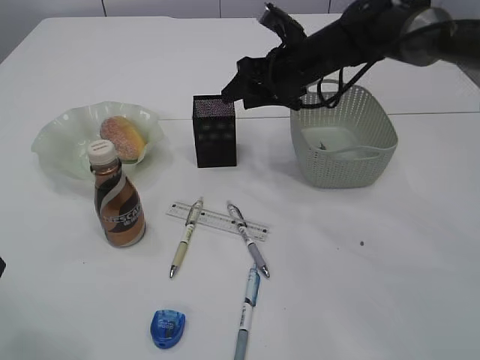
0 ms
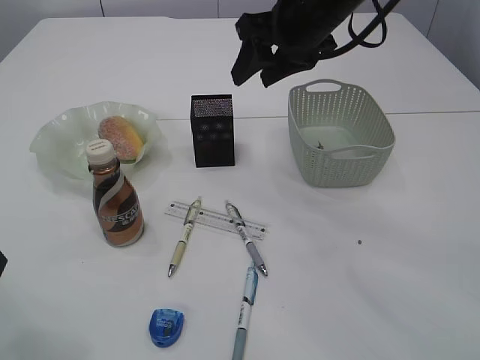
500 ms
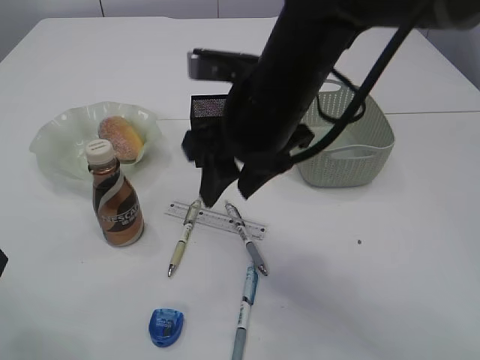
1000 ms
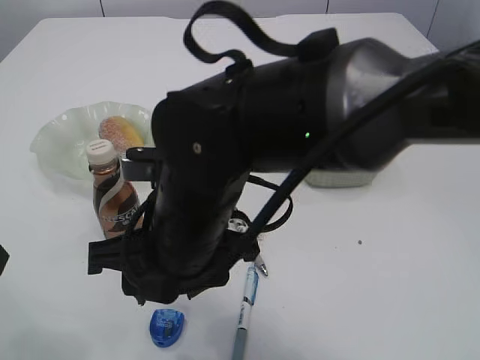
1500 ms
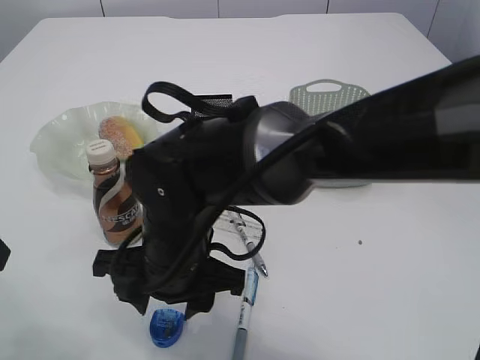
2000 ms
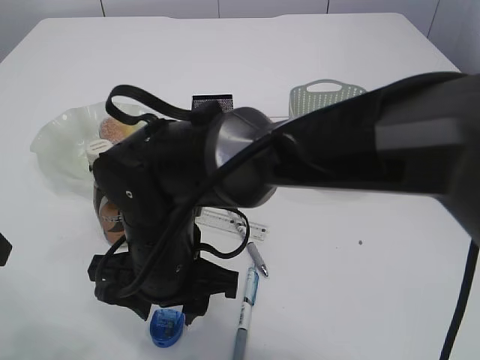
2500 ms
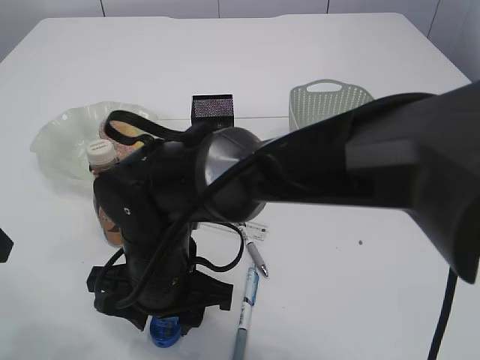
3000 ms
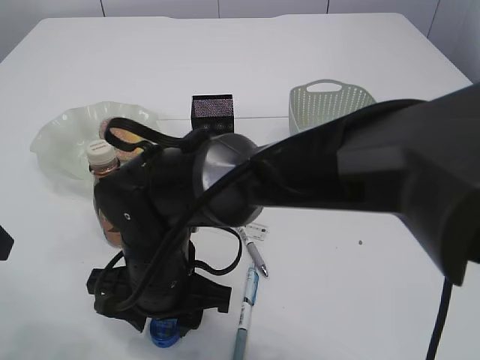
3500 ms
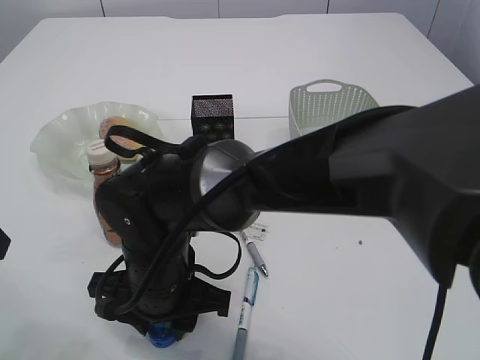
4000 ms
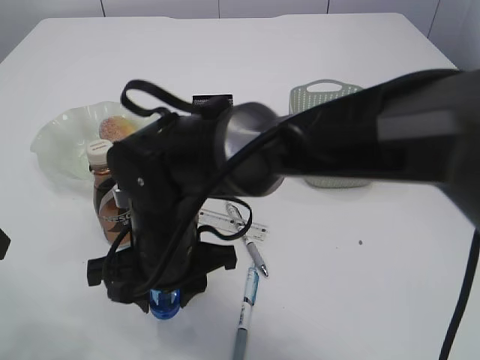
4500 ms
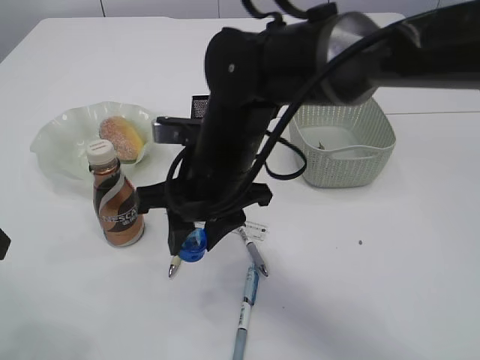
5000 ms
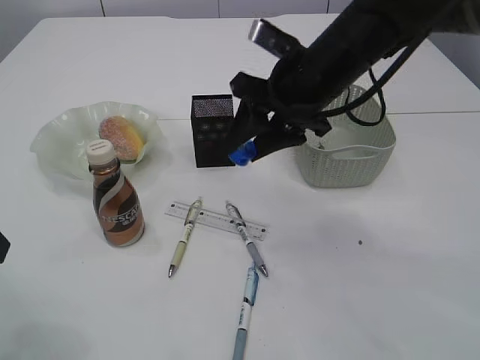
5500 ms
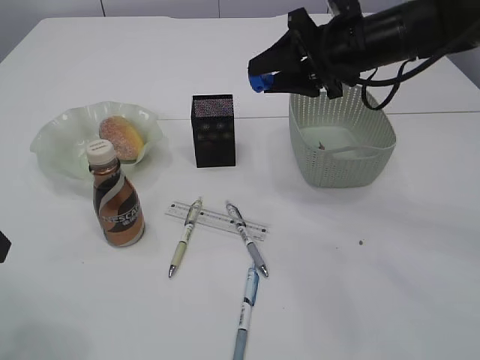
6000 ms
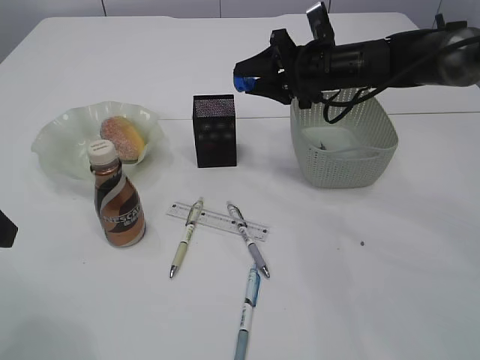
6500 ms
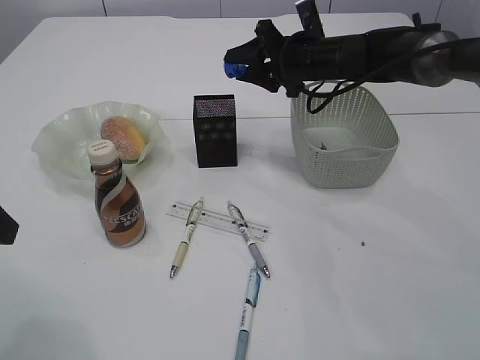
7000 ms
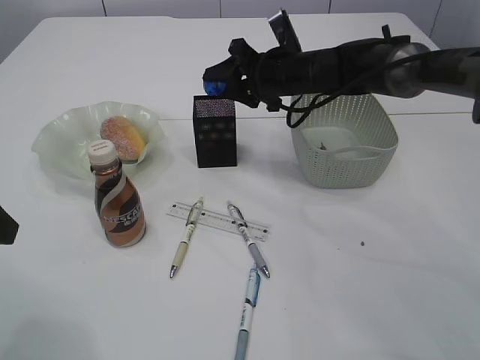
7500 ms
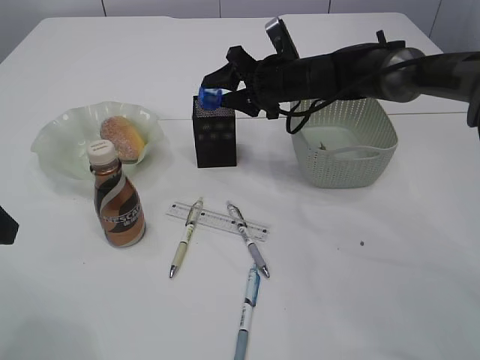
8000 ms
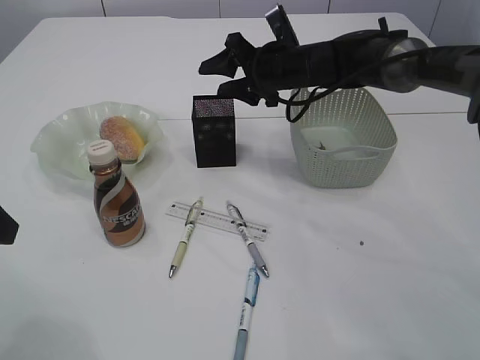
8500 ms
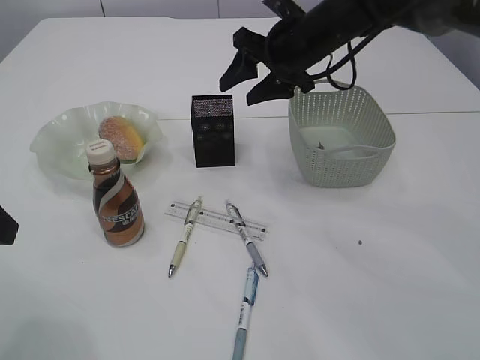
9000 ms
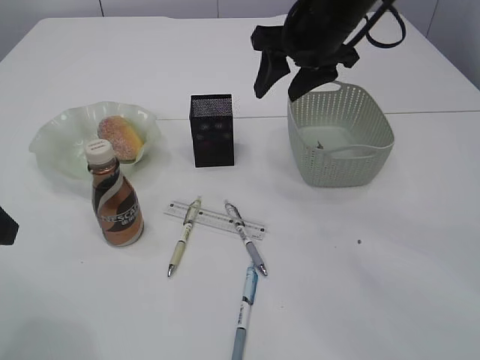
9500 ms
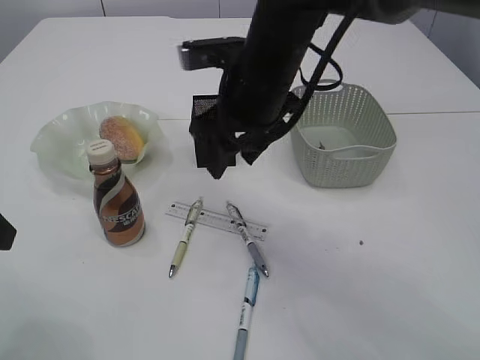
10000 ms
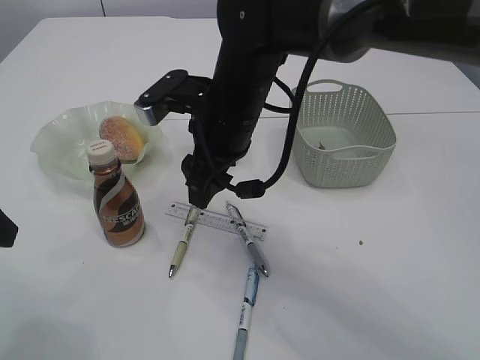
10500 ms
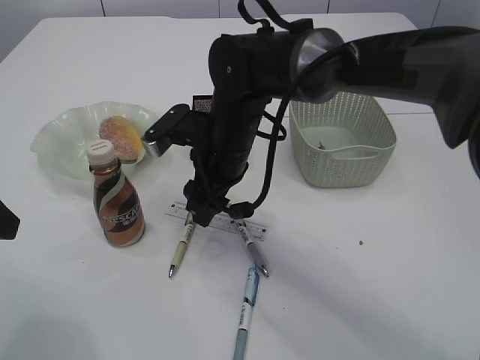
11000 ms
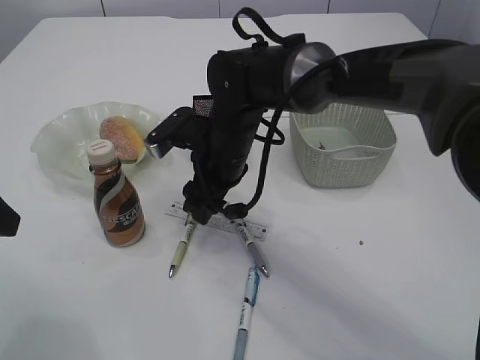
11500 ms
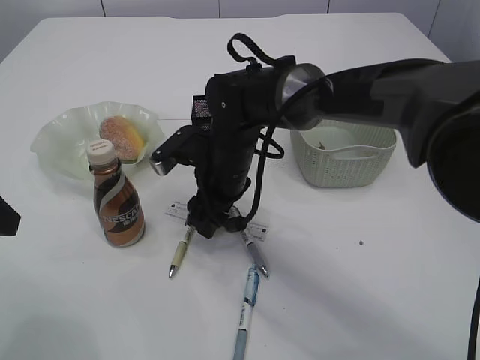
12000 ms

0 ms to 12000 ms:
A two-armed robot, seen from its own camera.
Step, 0 ms to 5000 ms: Pick up the blue pencil sharpener.
Step, 5500 ms to 8000 ms: Place the blue pencil sharpener into the pen holder.
0 ms to 2000 ms: The right gripper is displaced backward and to the left by about 30 cm.
4000 ms to 6000 ms: The right gripper travels to the right, forward and upward by some 35 cm.
6000 ms to 8000 ms: The right gripper travels downward, forward and to the left by approximately 15 cm.
8000 ms to 10000 ms: The right gripper is displaced backward and upward by about 15 cm.
10000 ms to 12000 ms: The right gripper travels downward by about 15 cm.

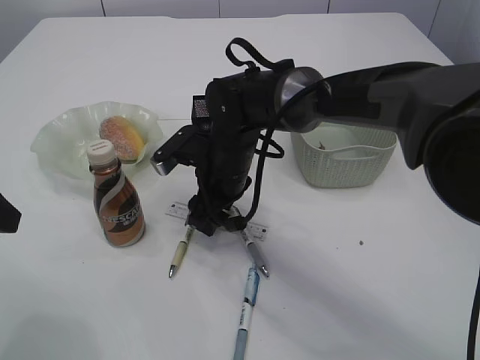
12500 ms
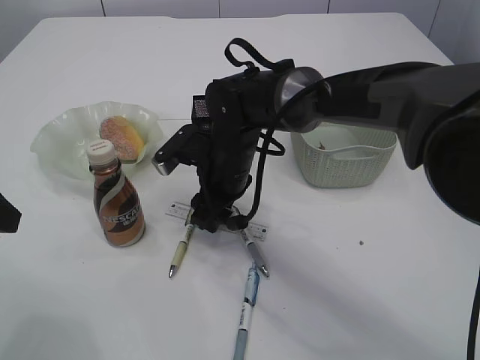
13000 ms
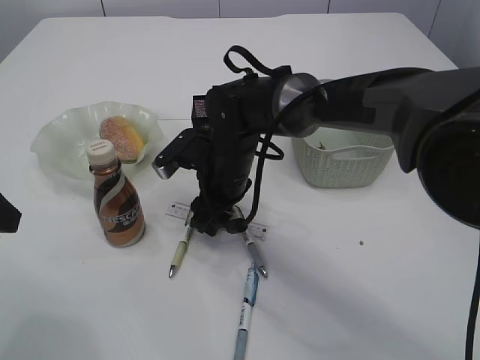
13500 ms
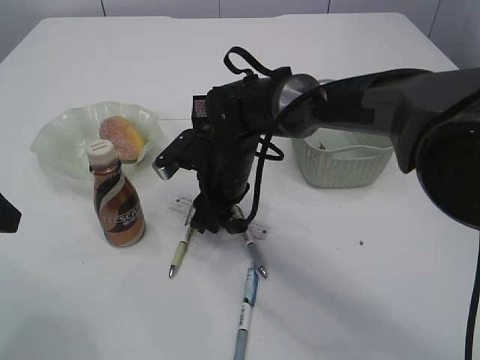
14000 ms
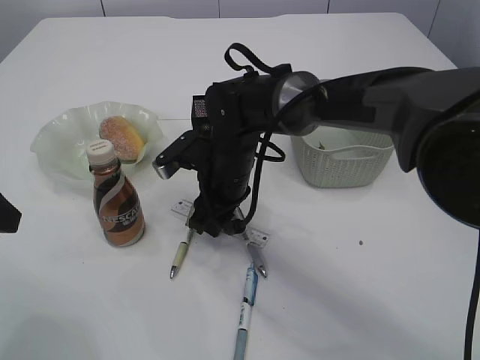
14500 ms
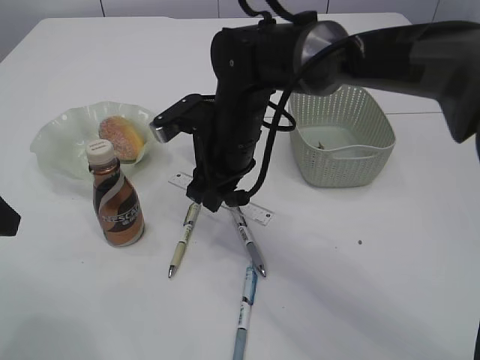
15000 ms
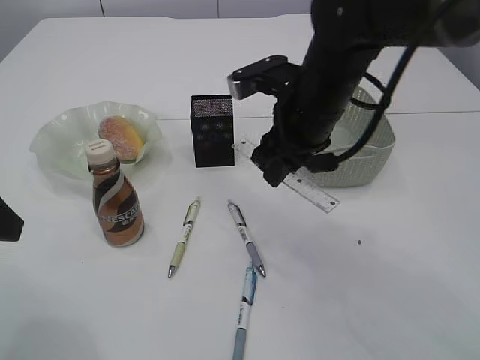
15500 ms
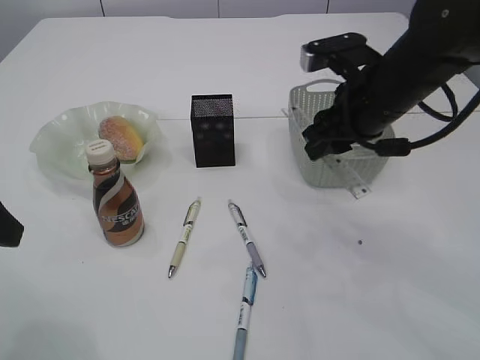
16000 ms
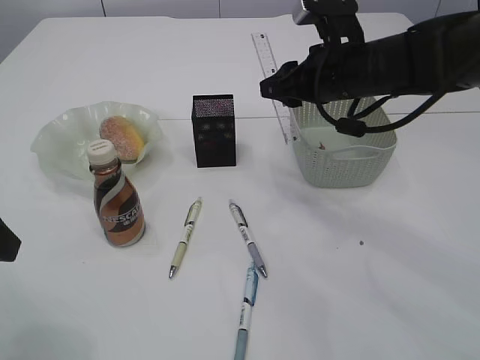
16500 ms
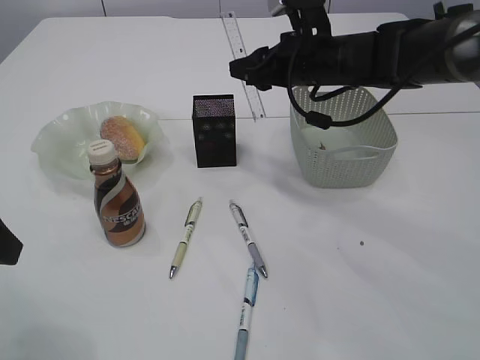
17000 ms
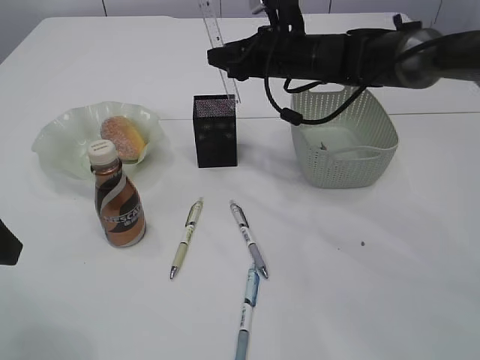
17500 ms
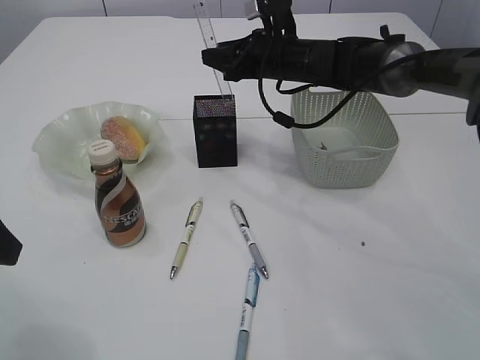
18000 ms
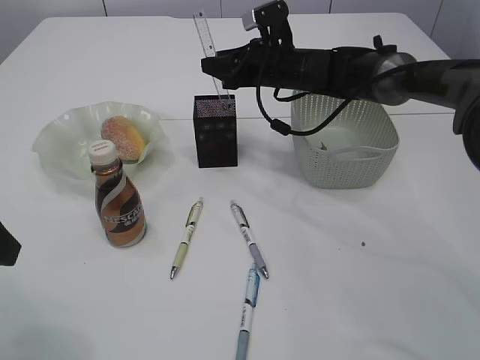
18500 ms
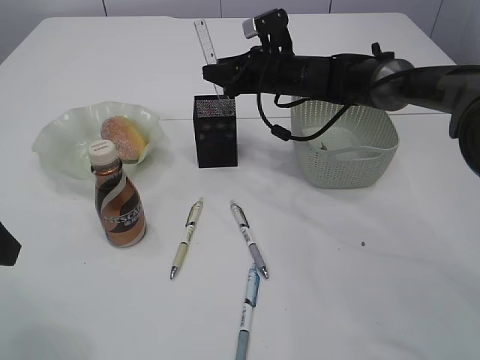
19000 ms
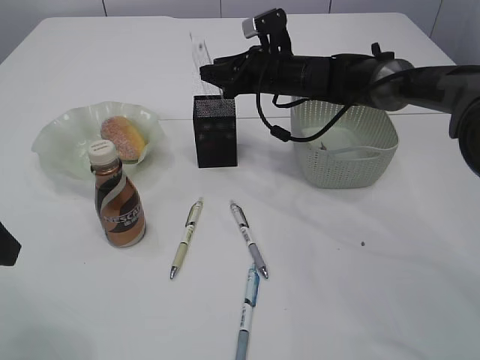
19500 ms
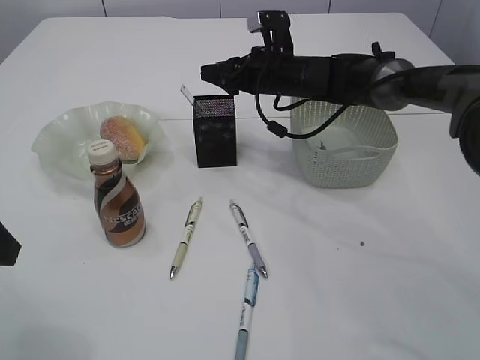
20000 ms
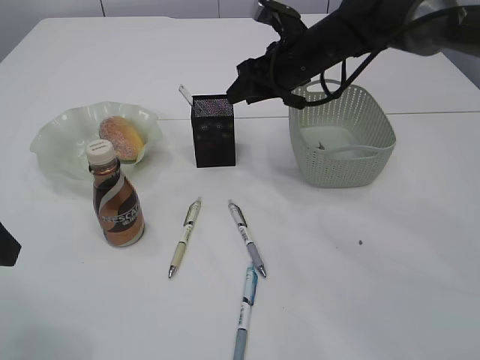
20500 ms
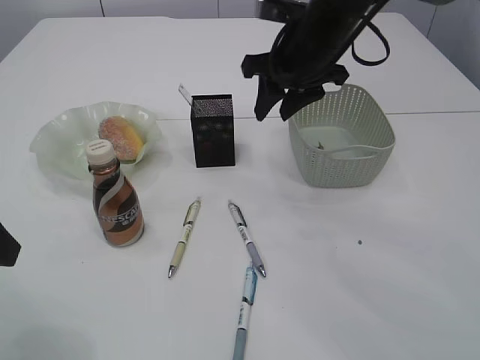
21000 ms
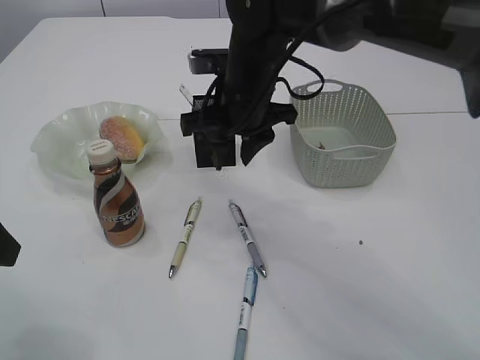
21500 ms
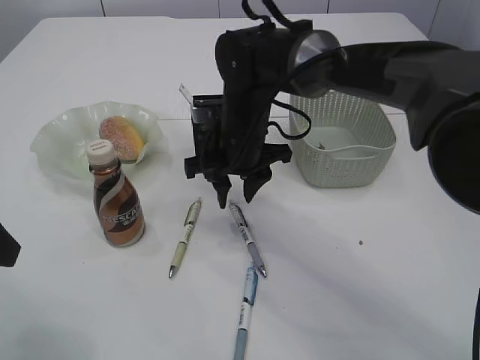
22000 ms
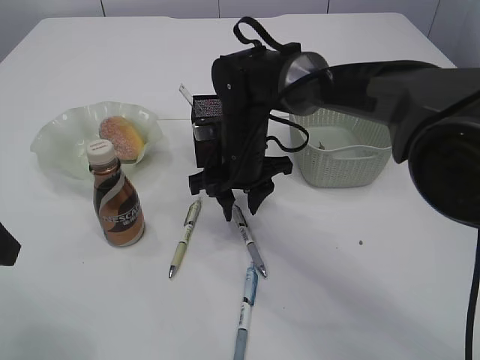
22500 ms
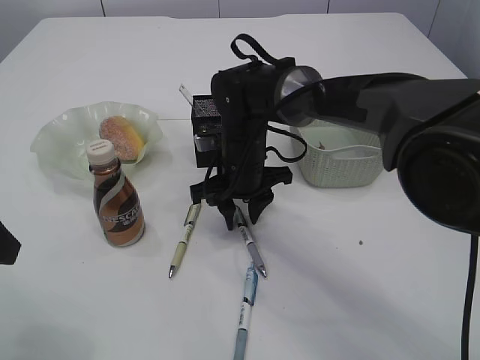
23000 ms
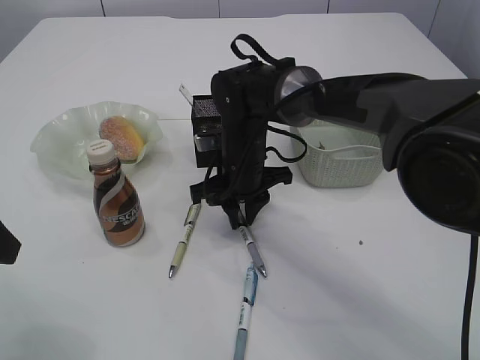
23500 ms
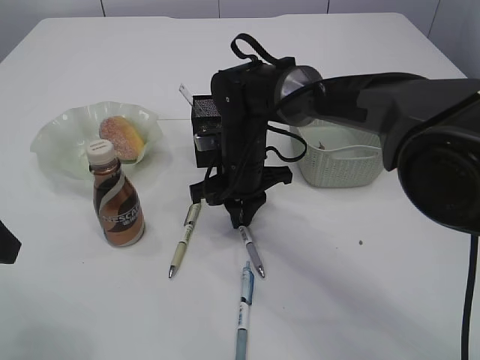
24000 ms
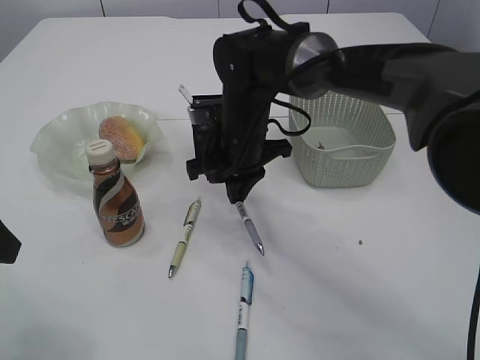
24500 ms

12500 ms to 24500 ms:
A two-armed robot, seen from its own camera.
Step, 12500 ms to 15000 ms: pick up the ruler.
Step, 15500 ms to 20000 ms: Place the ruler into the pen holder.
12500 ms to 14500 ms: The right gripper closes up.
14500 ms to 16500 ms: The right gripper heads to the right and upward, covering approximately 20 cm.
16500 ms to 18500 ms: The right gripper heads forward and downward, covering some 15 cm.
20500 ms to 22500 ms: The right gripper heads to the left, backward and downward, covering approximately 15 cm.
22500 ms to 24500 ms: The right gripper closes up.

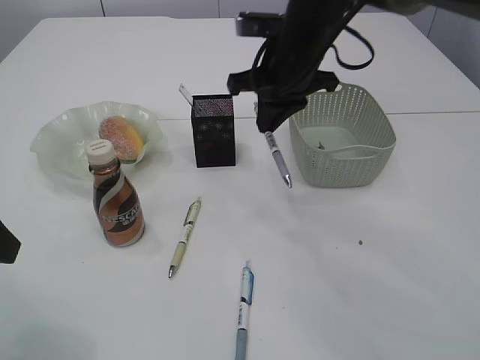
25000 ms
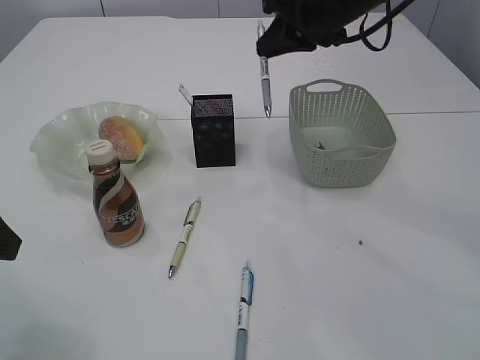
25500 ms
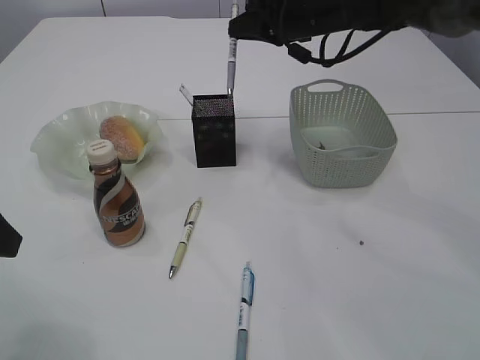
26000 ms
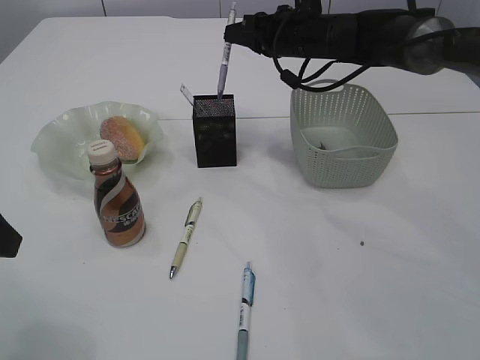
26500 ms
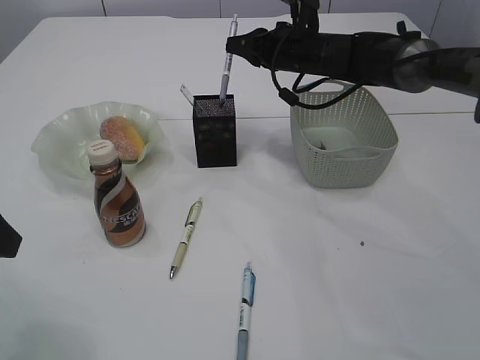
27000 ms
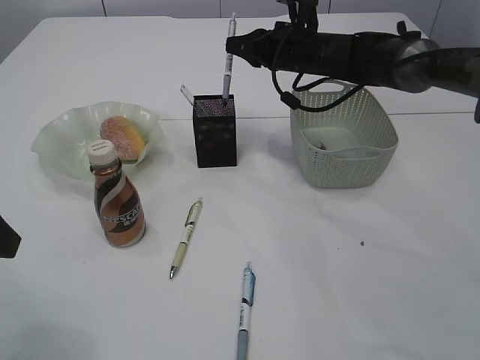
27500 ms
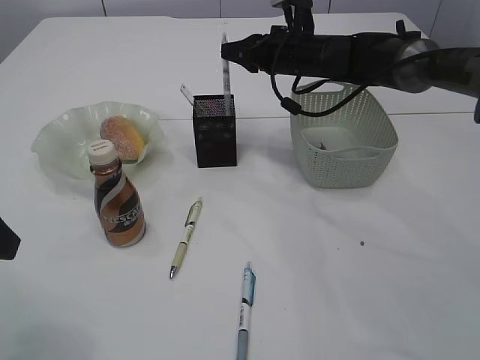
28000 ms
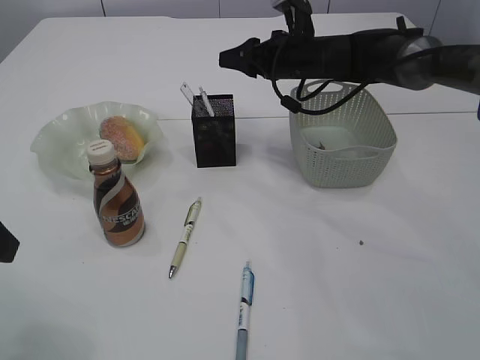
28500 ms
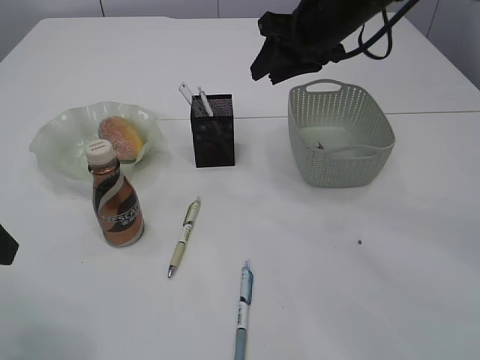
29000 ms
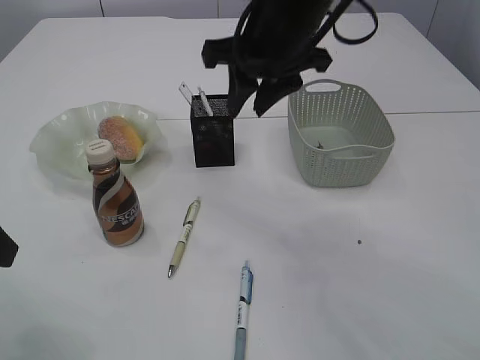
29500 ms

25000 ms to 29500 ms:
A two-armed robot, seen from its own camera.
Step, 25500 ms to 28500 ms: Place the pen into the pen holder.
25000 ms to 27000 ms: The right gripper moves forward and downward, some 10 cm.
27000 ms to 29500 ms: The right gripper travels backward and upward by about 20 cm, and opens up.
